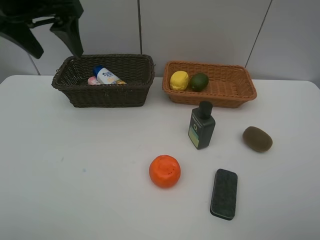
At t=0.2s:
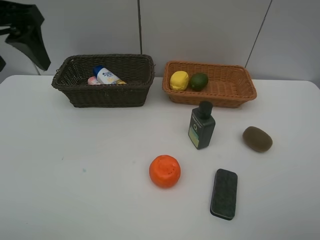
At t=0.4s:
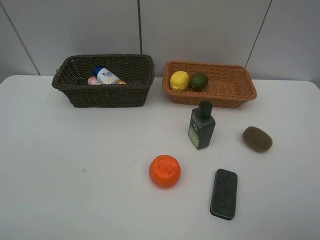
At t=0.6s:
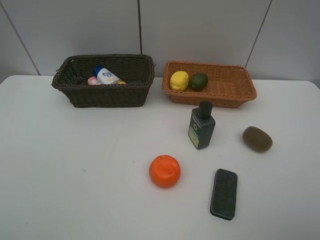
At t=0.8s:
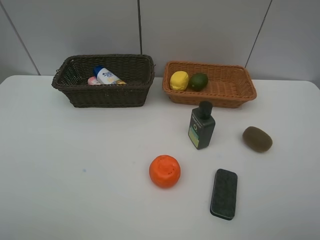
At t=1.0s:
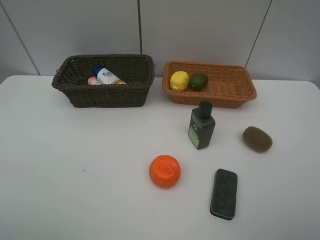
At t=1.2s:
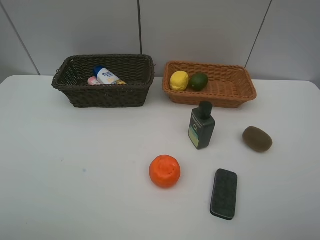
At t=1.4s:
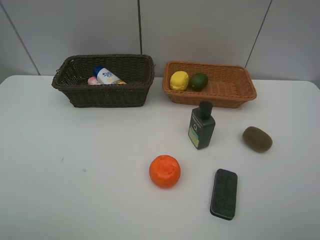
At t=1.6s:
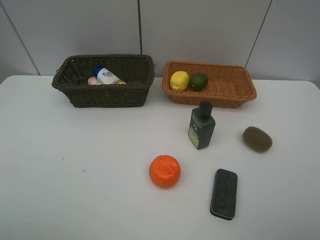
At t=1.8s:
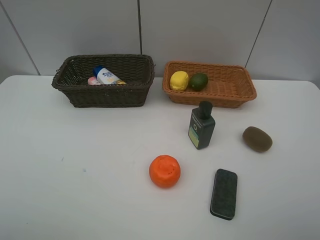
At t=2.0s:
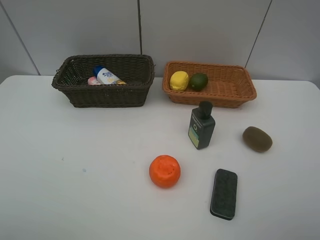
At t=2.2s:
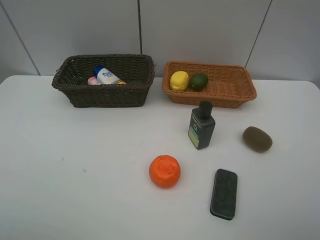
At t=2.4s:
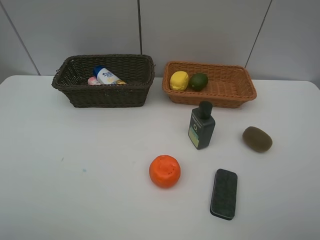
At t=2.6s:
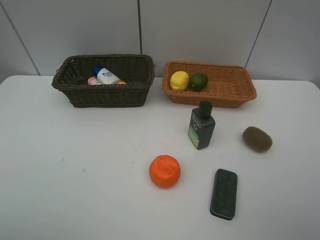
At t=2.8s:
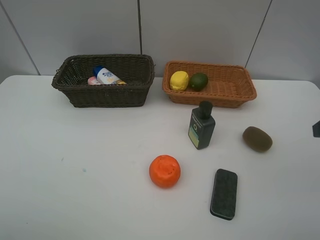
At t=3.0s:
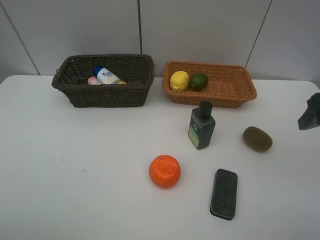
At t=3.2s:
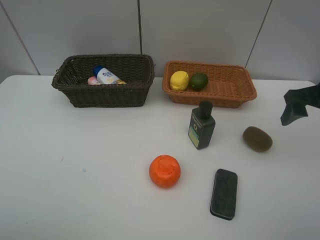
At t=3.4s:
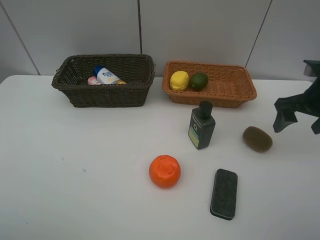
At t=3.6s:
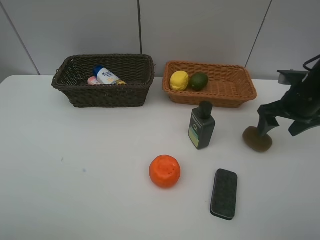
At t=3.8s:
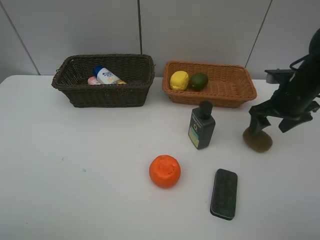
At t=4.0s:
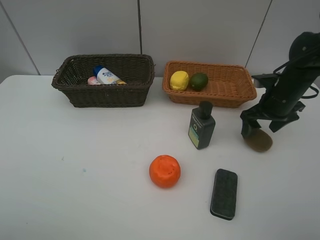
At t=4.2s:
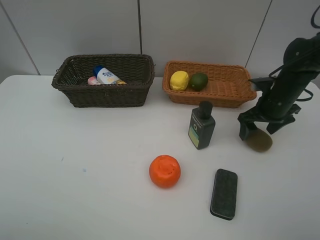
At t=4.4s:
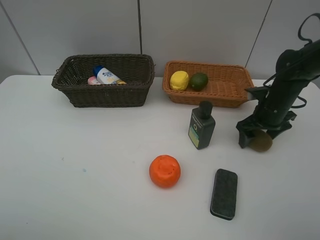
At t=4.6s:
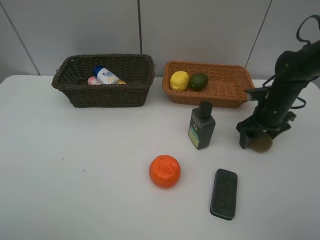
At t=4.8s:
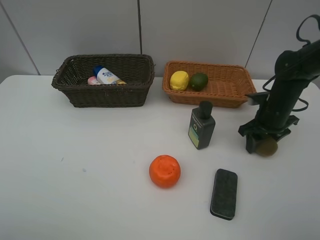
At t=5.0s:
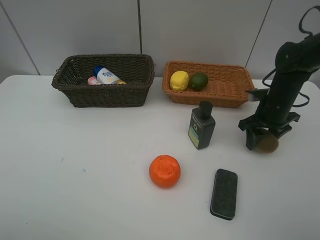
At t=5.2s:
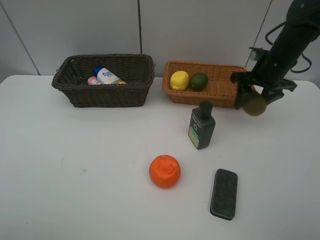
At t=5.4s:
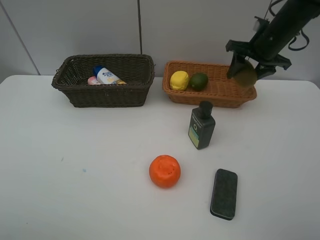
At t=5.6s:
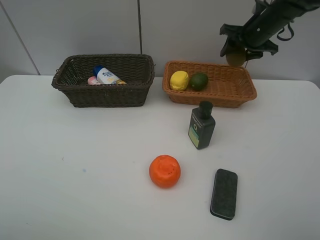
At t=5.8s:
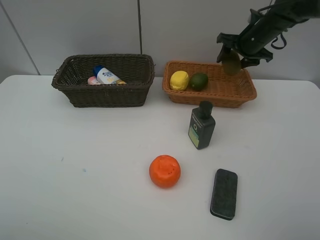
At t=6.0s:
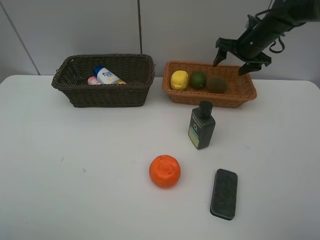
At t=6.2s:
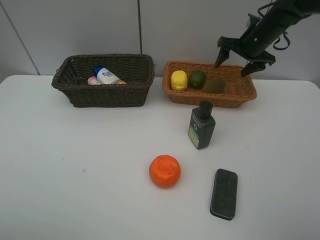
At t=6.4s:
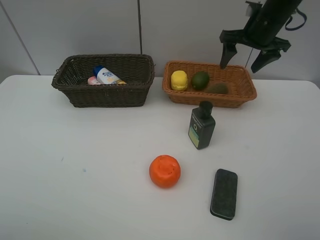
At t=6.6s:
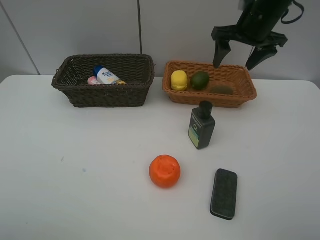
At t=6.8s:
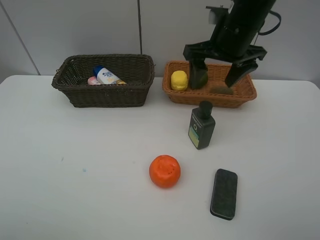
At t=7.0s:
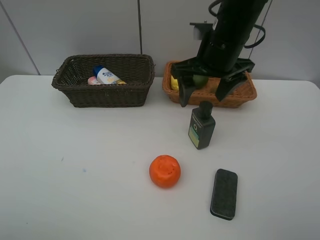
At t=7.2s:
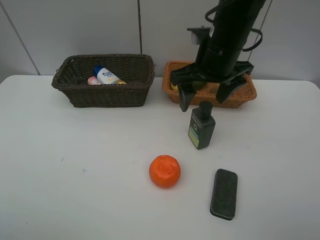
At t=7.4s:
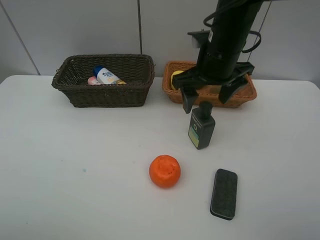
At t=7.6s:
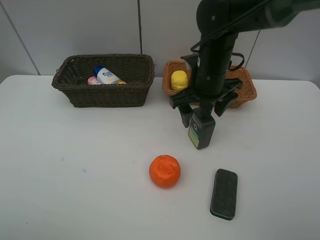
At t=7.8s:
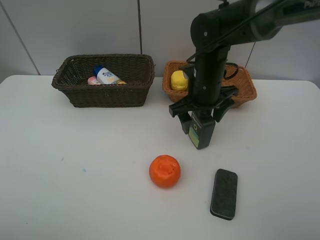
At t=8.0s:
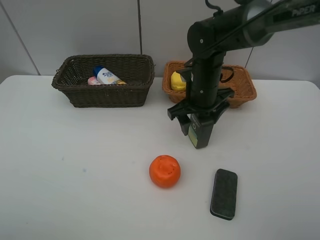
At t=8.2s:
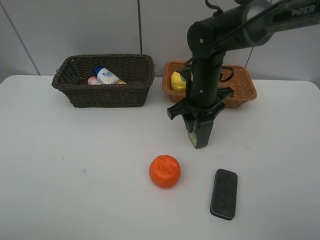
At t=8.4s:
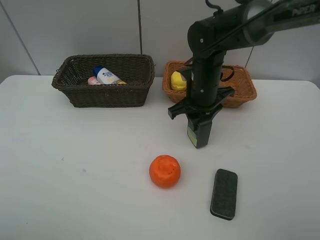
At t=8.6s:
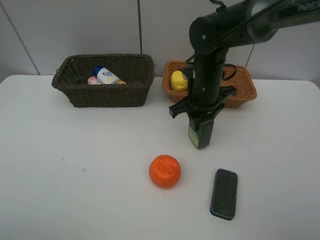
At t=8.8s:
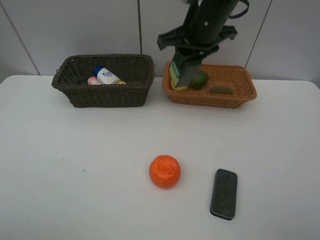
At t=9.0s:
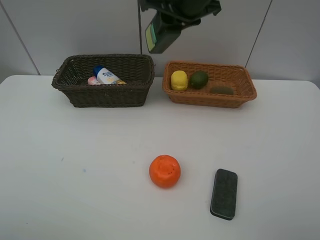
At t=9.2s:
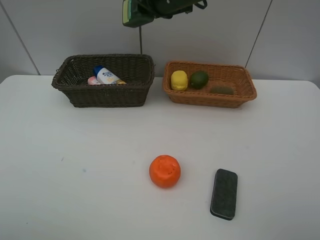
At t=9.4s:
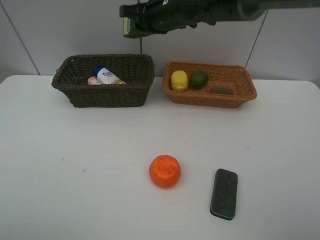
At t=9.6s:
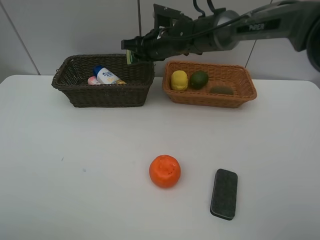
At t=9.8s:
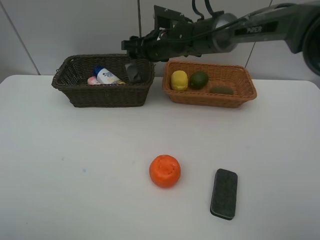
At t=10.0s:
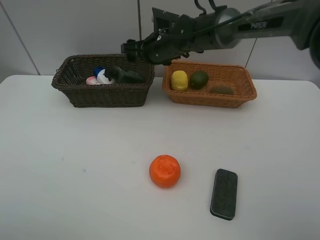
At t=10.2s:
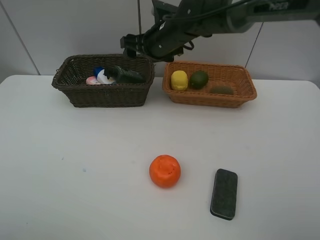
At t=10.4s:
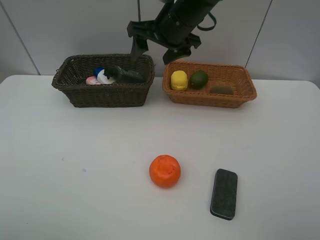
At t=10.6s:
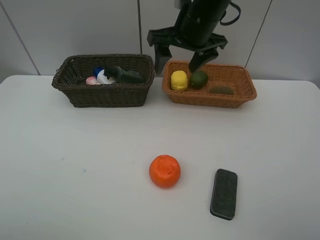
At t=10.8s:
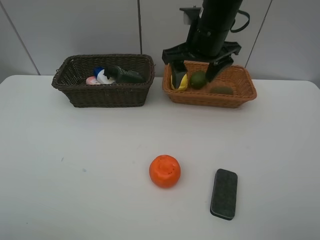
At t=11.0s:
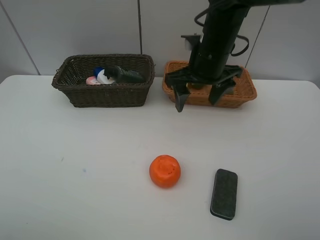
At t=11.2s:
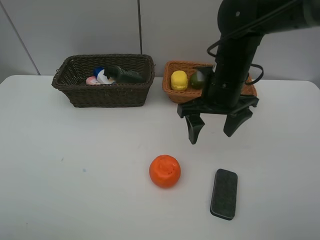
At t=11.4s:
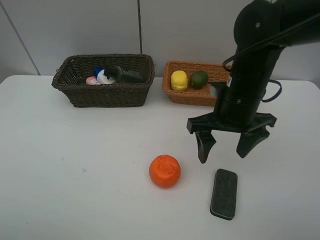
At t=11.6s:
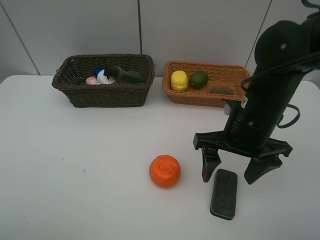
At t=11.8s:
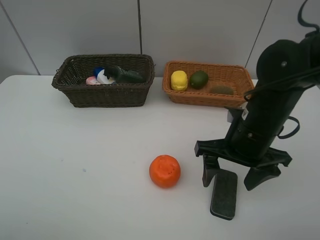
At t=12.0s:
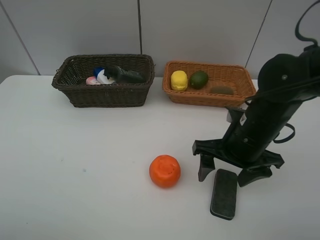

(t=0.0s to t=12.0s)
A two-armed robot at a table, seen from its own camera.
Task of the whole recording: Place multiple objects separately in different baskets.
Step, t=0.0s - t=5.0s: Pick up kiwi with right gripper.
Step, t=5.2s - t=6.0s: Place the kiwi in the light basket with right gripper.
Step, t=6.2s - t=8.6s: Pick up the hard facial cleanser with right gripper.
Step, t=8.8s - t=10.0s: Place the hard facial cleanser in the dark basket with right gripper.
t=0.0s - t=1.6s: The left gripper heads backward, covering approximately 30 cm.
t=1.6s - t=3.0s: The right gripper is displaced forward by approximately 20 cm.
t=3.0s - t=4.4s: The right gripper travels downward and forward by some 20 cm.
t=4.4s - t=6.0s: The right gripper heads forward and upward, covering approximately 15 cm, and closes and opens again.
t=6.0s - t=7.6s: The right gripper moves backward and to the left, roughly 20 cm.
t=7.6s - t=9.0s: The right gripper shifts about 15 cm upward, and closes.
t=9.0s - t=10.4s: The right gripper goes downward and returns, some 15 cm each way, and opens.
t=10.4s - t=12.0s: The right gripper moves backward, downward and to the right, about 20 cm.

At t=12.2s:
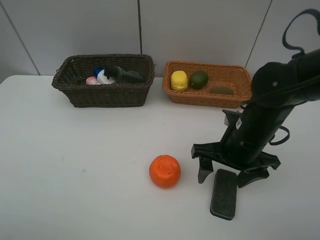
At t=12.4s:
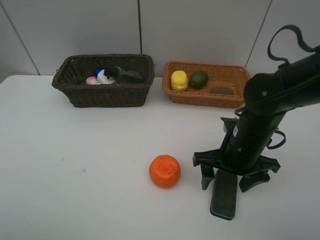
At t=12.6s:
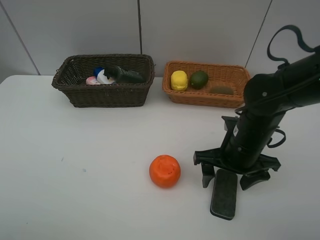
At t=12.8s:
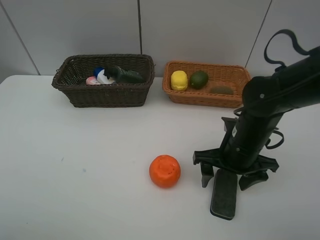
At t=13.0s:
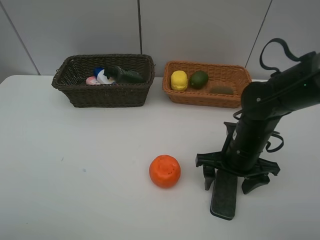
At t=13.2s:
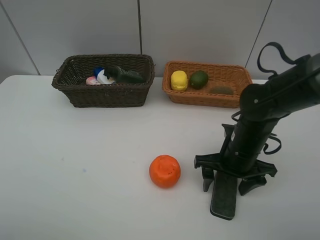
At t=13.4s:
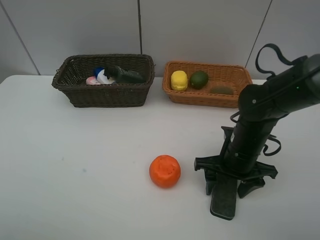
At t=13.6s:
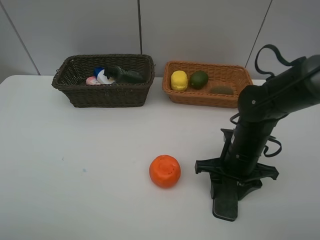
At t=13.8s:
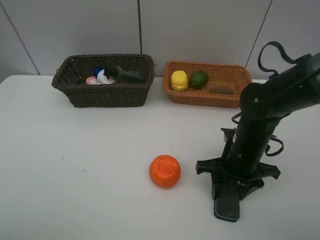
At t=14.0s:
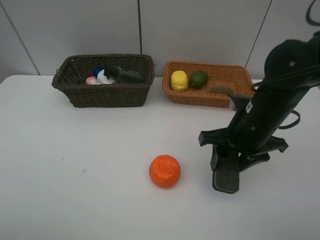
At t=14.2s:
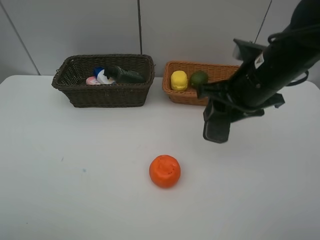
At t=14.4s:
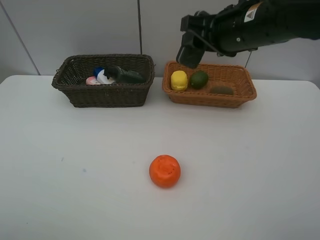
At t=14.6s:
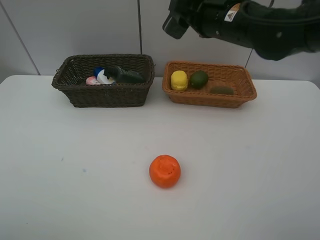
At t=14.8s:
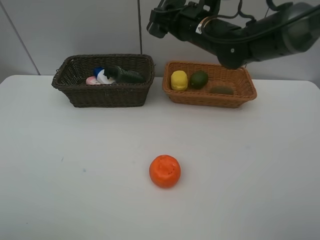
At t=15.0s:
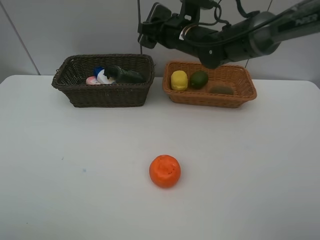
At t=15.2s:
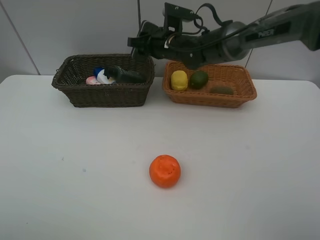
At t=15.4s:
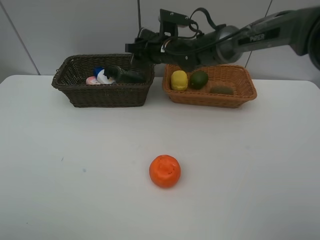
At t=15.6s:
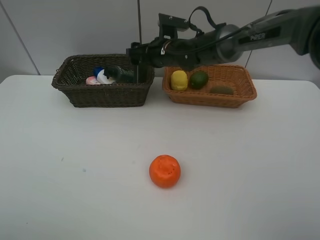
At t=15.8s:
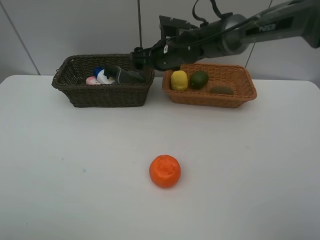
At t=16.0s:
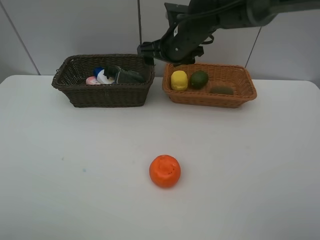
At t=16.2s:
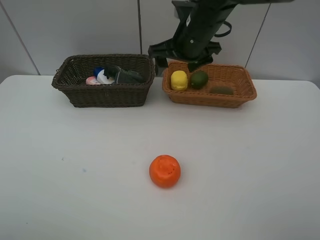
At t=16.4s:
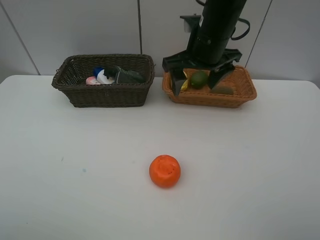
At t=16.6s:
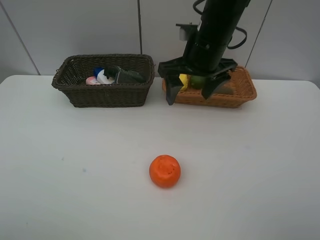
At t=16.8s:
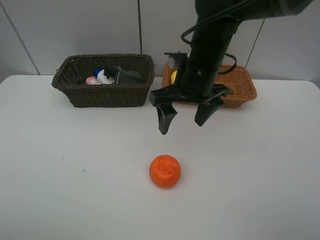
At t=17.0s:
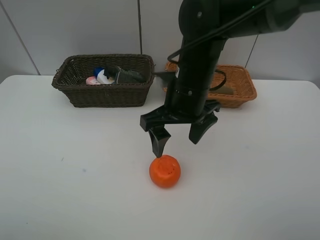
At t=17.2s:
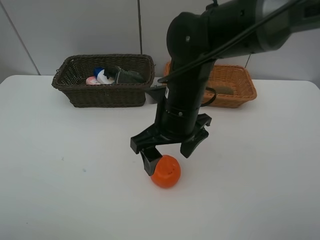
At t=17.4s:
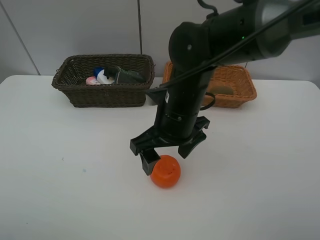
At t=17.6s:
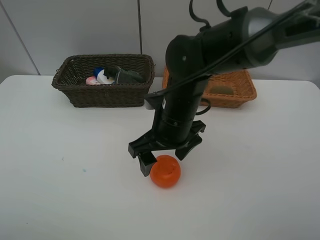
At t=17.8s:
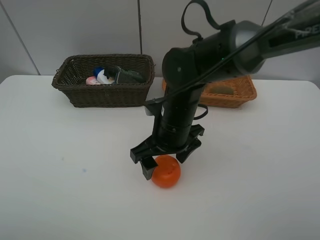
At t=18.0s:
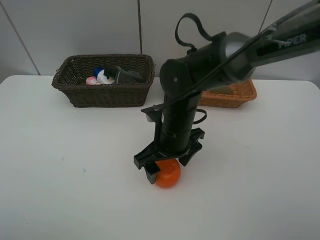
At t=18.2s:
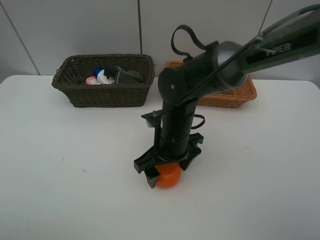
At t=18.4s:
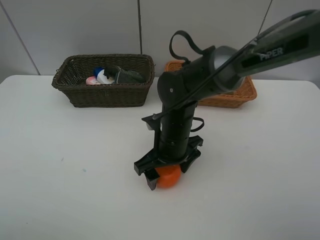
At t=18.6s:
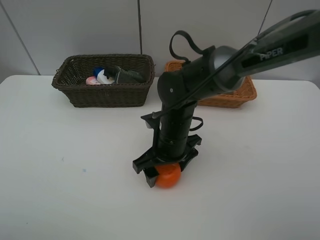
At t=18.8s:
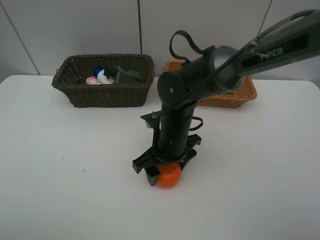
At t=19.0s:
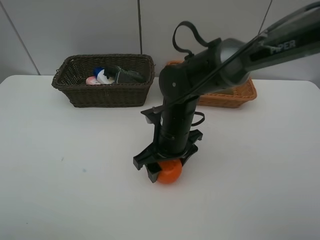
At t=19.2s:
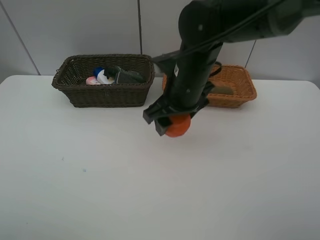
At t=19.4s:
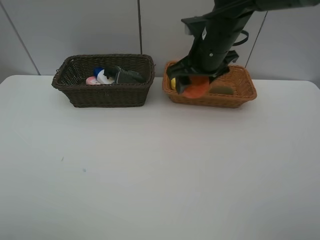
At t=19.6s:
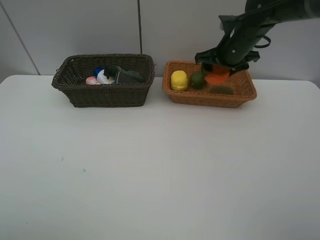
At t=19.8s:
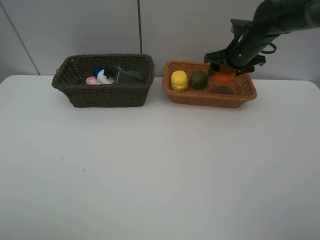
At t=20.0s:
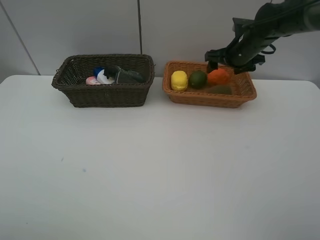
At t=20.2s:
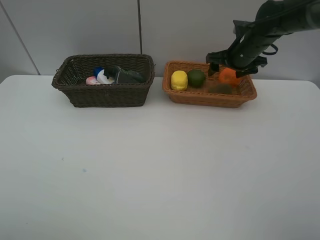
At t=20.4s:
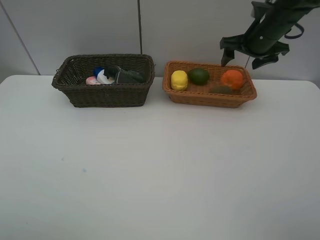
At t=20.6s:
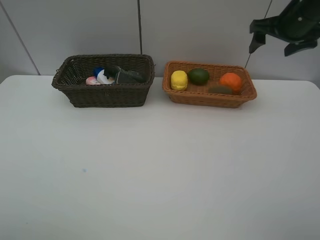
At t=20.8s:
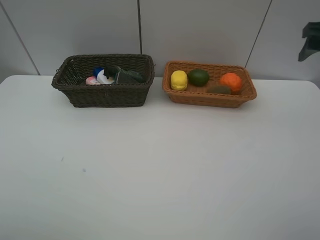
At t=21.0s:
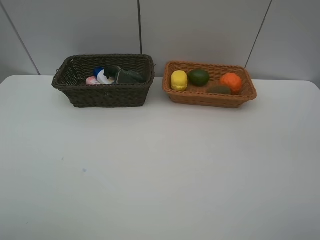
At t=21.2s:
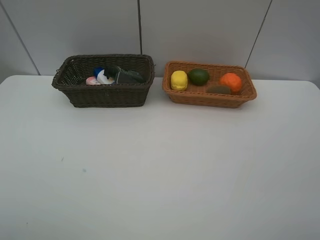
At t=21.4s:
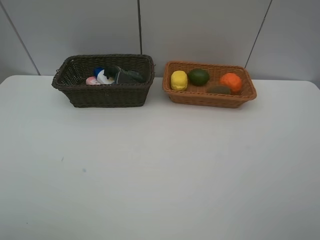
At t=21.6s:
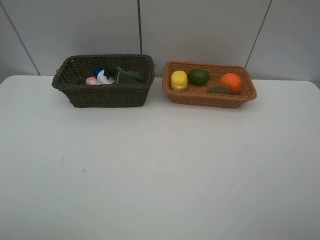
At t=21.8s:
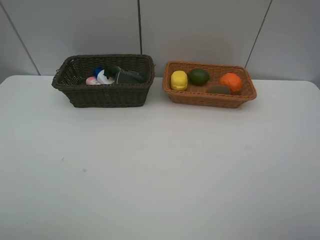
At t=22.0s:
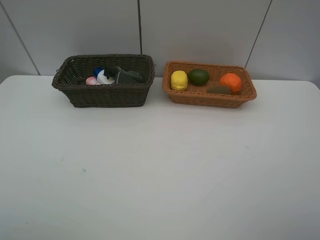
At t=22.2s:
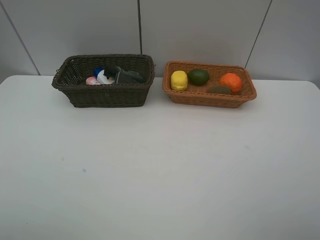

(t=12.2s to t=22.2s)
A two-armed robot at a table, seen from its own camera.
Task of the whole recording: Place multiple objects separately in different baskets.
Step, t=14.0s - t=15.8s: Place the blackboard eraser in the dark basket with right gripper.
Step, t=16.0s - t=19.0s: Pick up the orange with right gripper.
Step, t=19.2s - t=20.2s: Place the orange in the light basket with right gripper.
t=12.2s - t=13.6s: The right gripper closes.
t=13.6s - t=15.0s: The right gripper moves forward, to the left and upward, about 25 cm.
t=15.0s - t=16.4s: The right gripper heads backward and upward, covering some 10 cm, and opens.
t=16.4s - t=18.0s: The right gripper travels downward, backward and to the left by approximately 15 cm.
t=18.0s - t=19.4s: The right gripper moves forward, upward and to the right, about 20 cm.
t=19.4s - t=20.8s: The right gripper shifts some 25 cm to the right.
t=20.8s - t=22.2s: The right gripper shifts roughly 30 cm backward.
